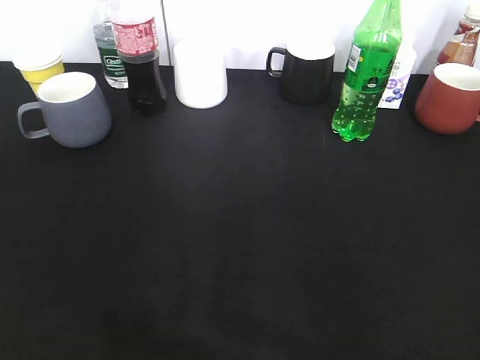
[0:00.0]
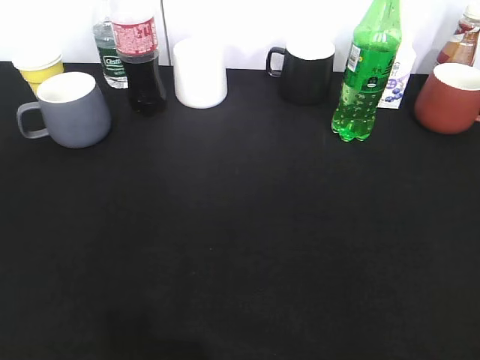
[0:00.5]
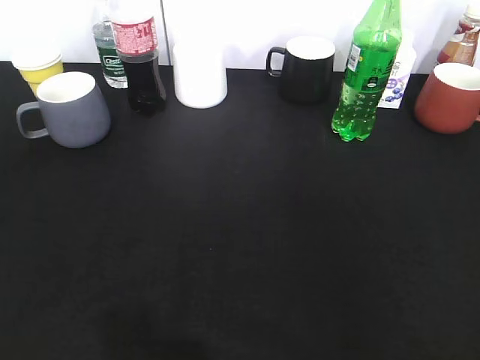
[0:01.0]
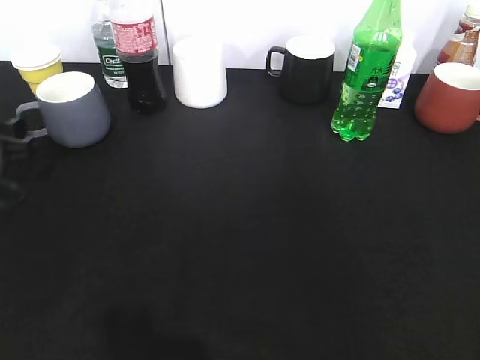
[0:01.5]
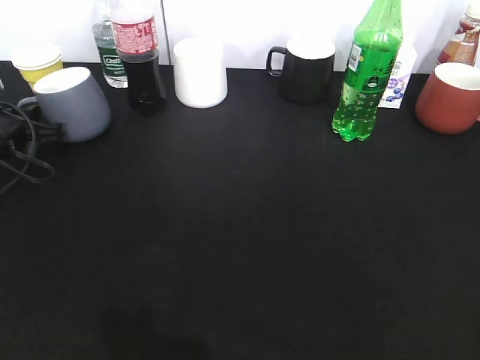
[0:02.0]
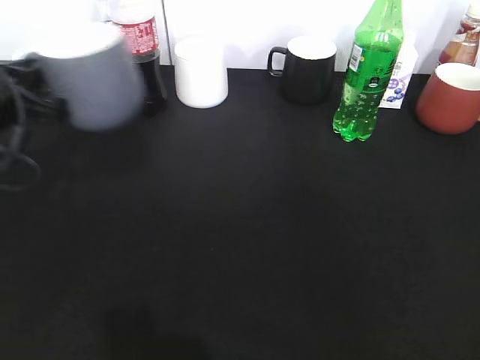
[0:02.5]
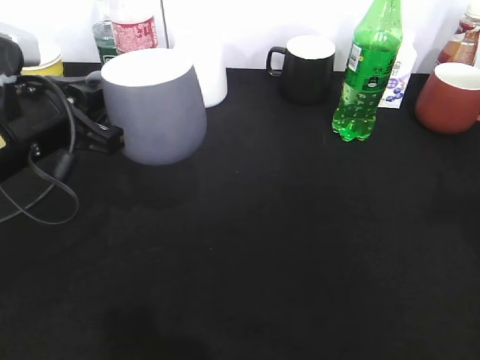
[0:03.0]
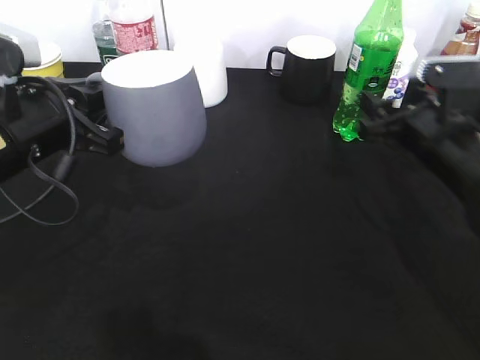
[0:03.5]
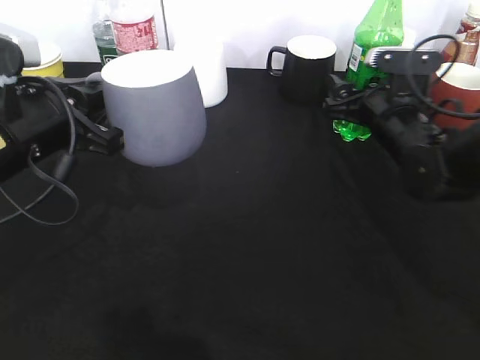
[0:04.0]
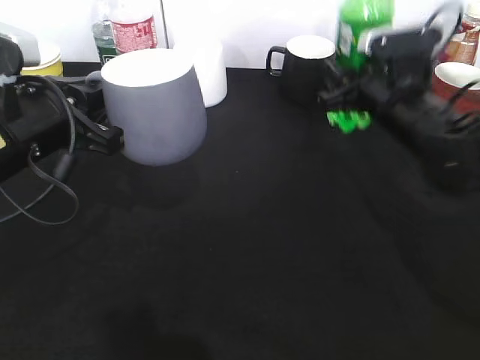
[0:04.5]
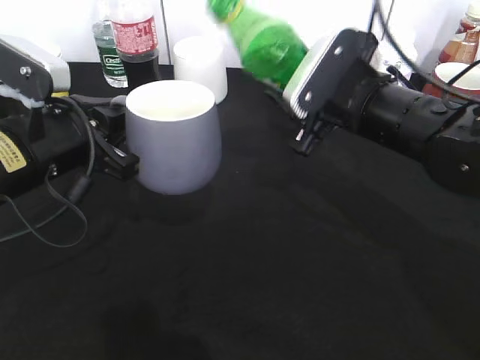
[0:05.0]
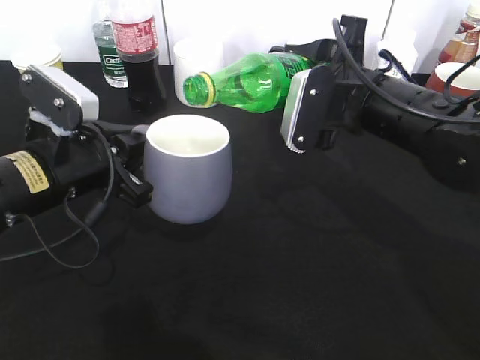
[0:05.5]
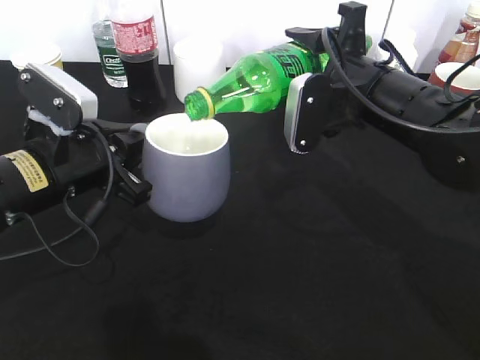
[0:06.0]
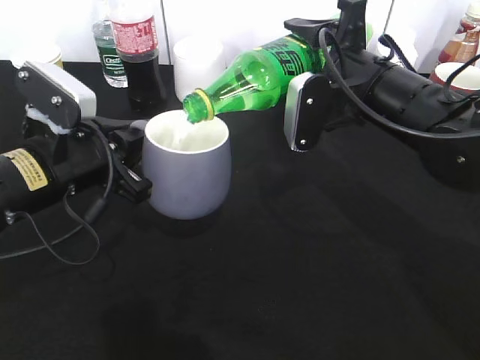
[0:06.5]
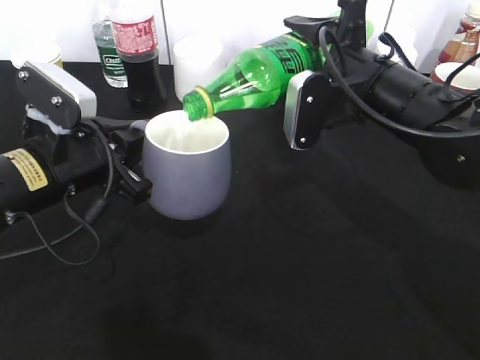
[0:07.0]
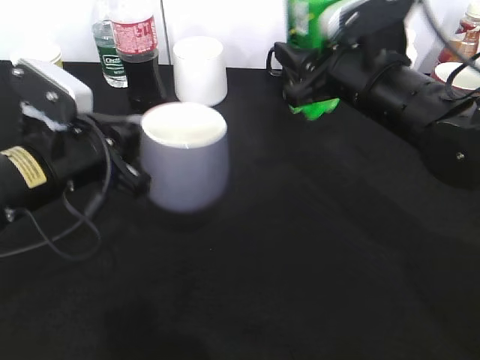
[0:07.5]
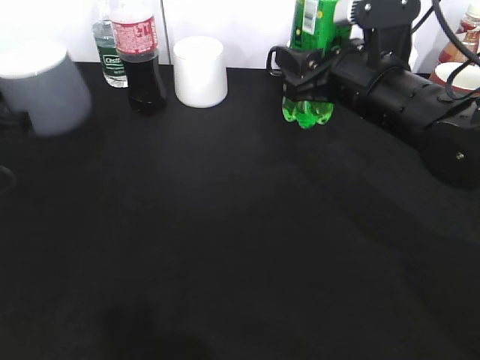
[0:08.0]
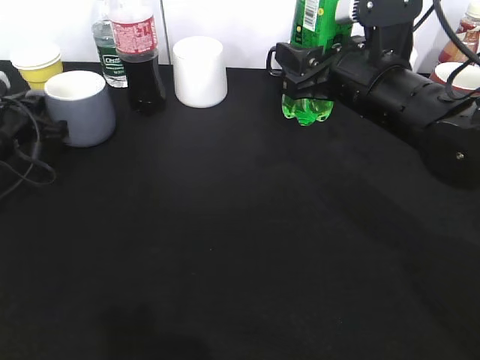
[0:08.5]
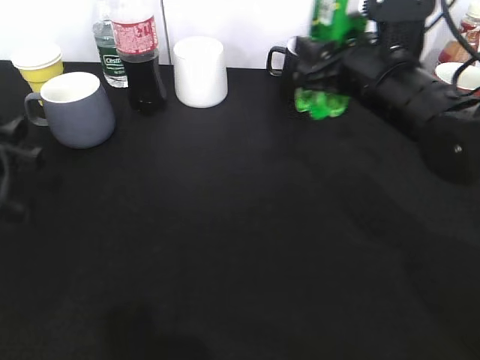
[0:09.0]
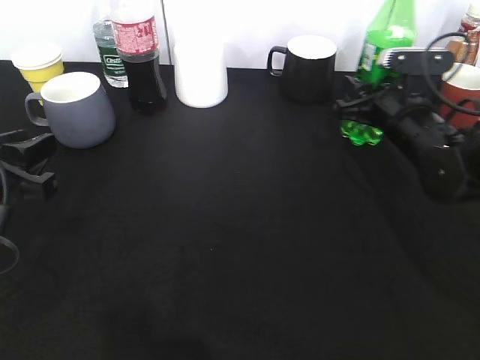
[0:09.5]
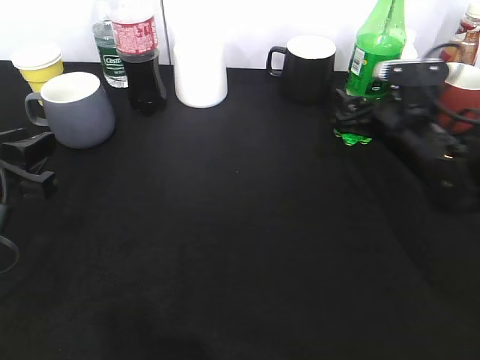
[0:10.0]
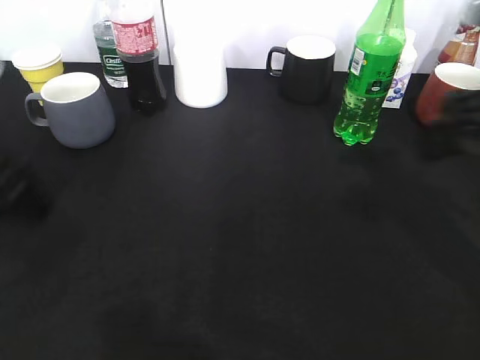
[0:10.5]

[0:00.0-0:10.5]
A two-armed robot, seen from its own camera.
Step, 0:02.5 to 0:03.0: Lift the grey cup with left gripper.
Step, 0:03.5 to 0:04.0: Grasp the bottle with sprite with right gripper.
Step, 0:04.5 to 0:07.0: Pour the sprite from bottle to cup with right gripper.
Step, 0:07.5 to 0:10.0: Place the sprite bottle on the table with right gripper.
0:00.0 to 0:02.0: The left gripper shifts some 40 cm forward and downward, and closes up.
0:02.0 to 0:04.0: The right gripper shifts about 40 cm forward and downward; the left gripper shifts roughly 20 cm backward, to the right and upward.
0:04.0 to 0:06.5: The right gripper shifts about 10 cm upward, to the left and backward, and closes up.
0:06.5 to 0:08.5: The left gripper is displaced to the left, forward and downward by roughly 20 cm.
0:08.5 to 0:10.5: The right gripper goes about 15 cm to the right, backward and upward, and opens up. The left gripper travels backward and upward by approximately 25 cm, and opens up.

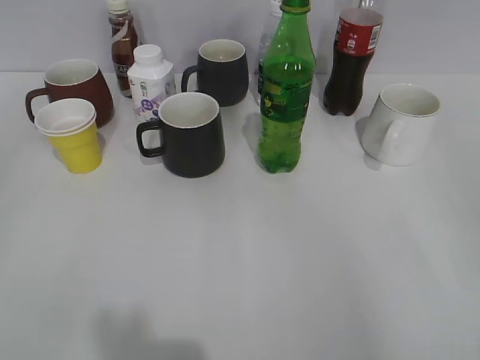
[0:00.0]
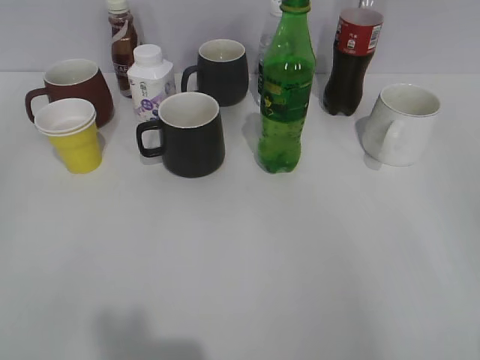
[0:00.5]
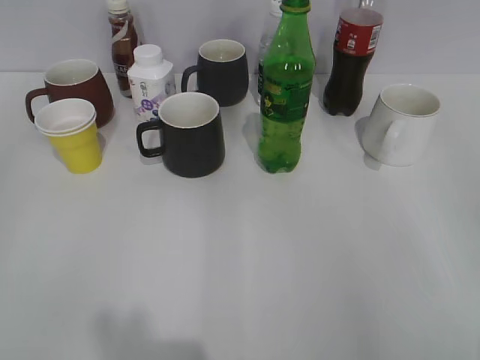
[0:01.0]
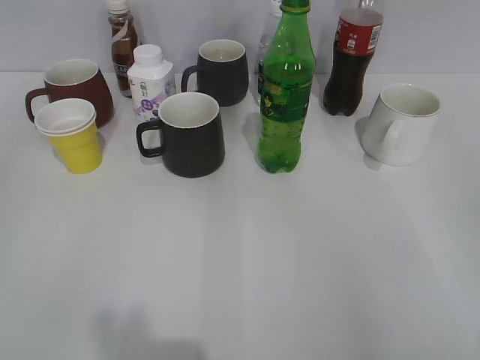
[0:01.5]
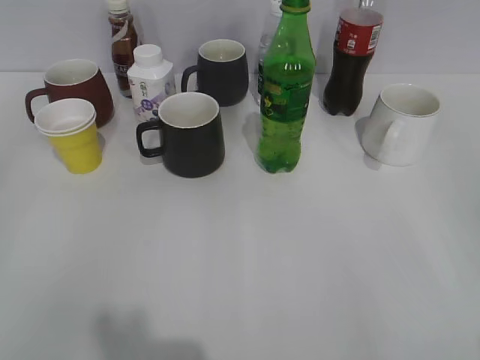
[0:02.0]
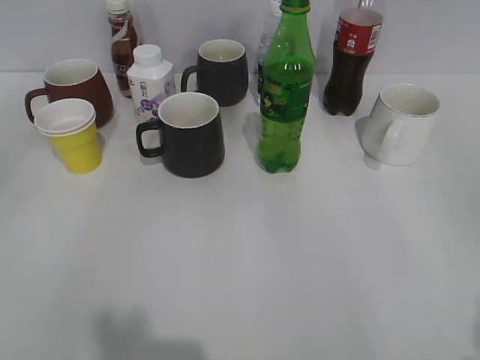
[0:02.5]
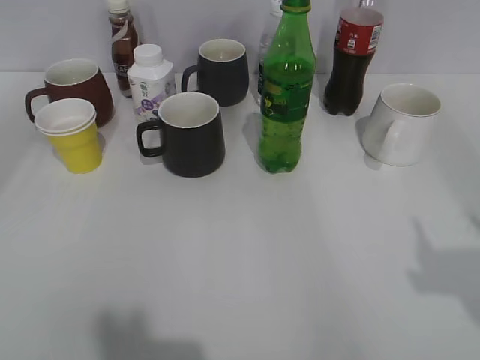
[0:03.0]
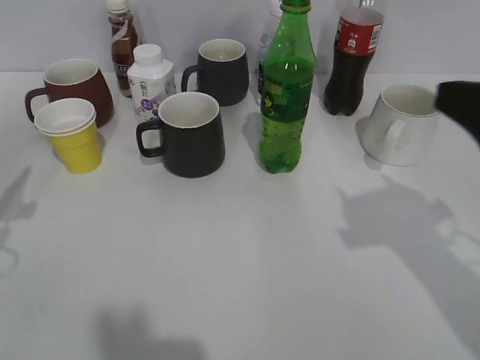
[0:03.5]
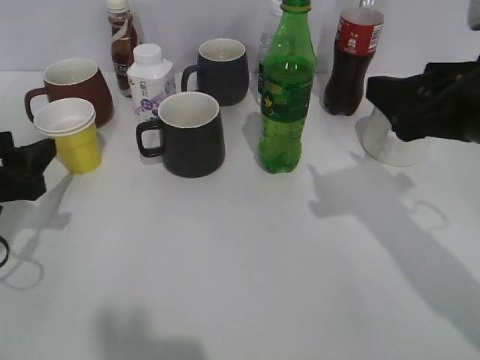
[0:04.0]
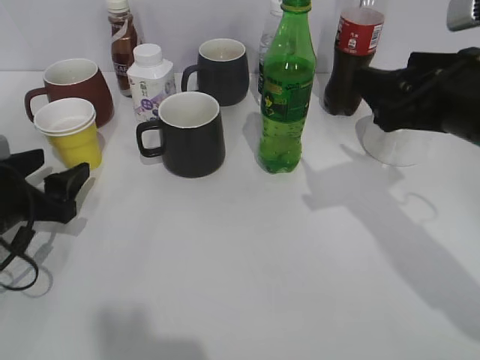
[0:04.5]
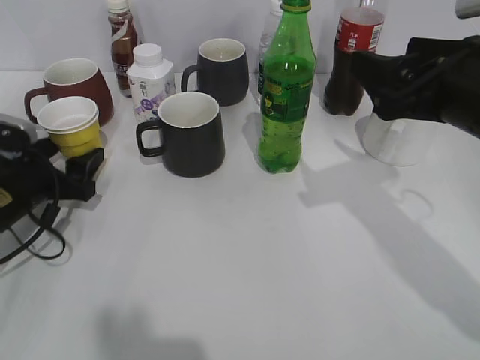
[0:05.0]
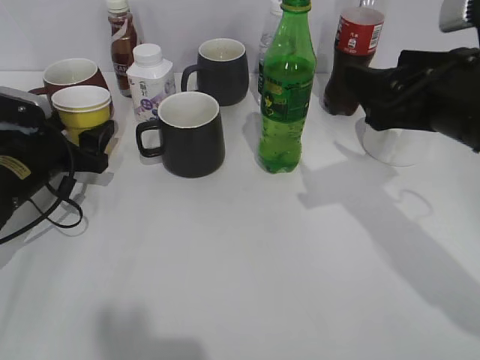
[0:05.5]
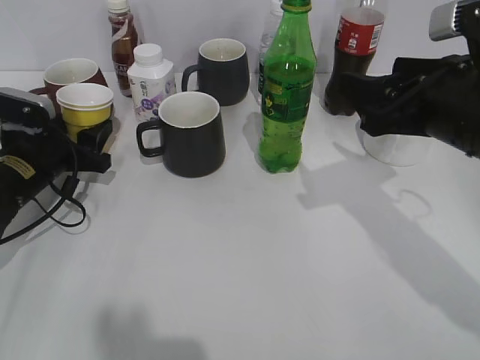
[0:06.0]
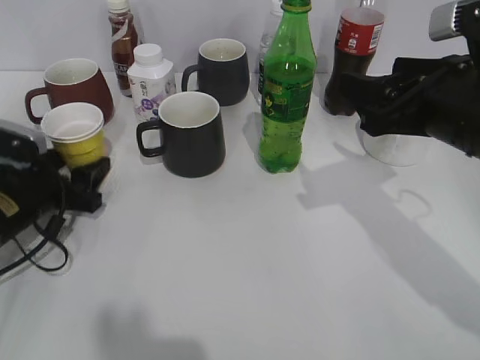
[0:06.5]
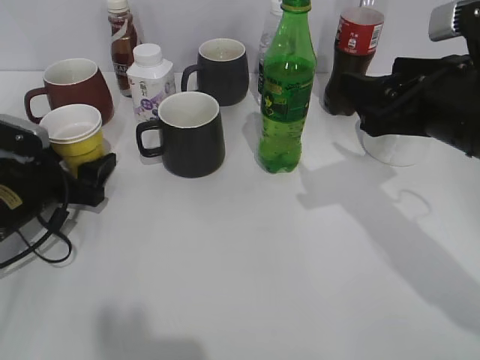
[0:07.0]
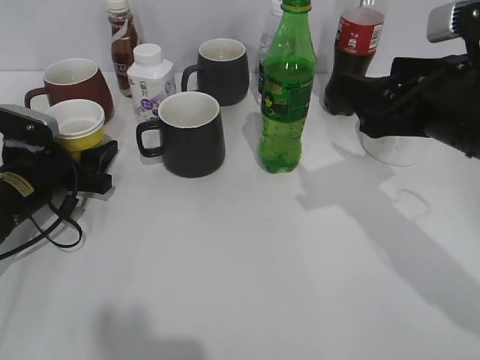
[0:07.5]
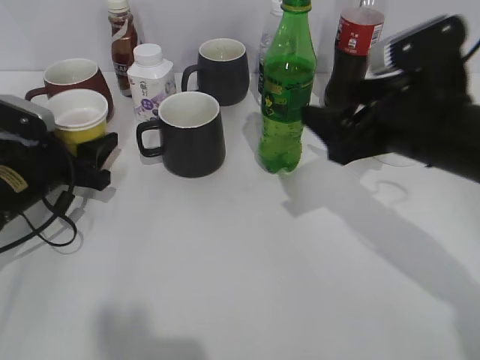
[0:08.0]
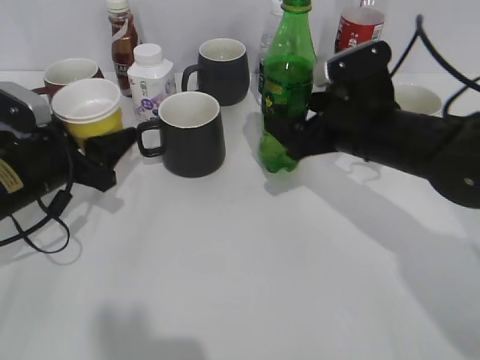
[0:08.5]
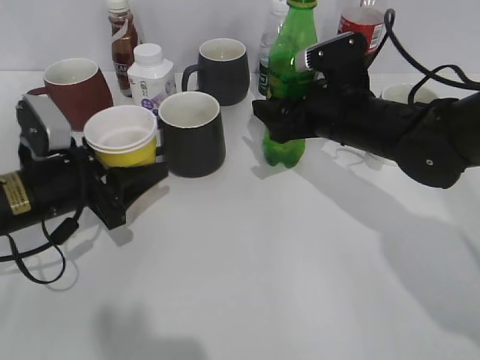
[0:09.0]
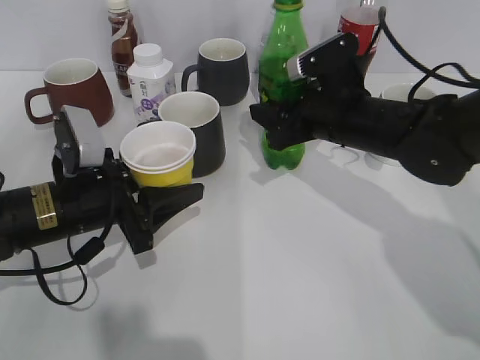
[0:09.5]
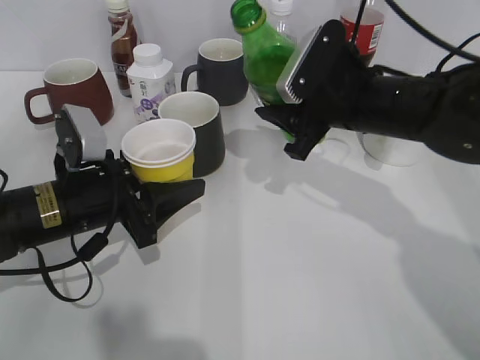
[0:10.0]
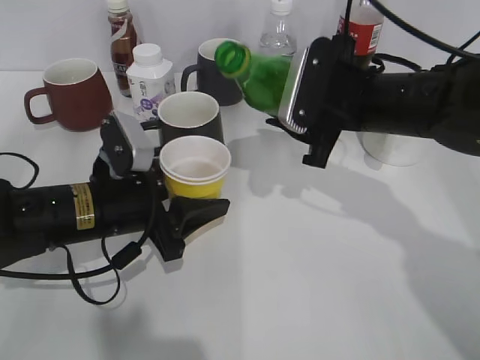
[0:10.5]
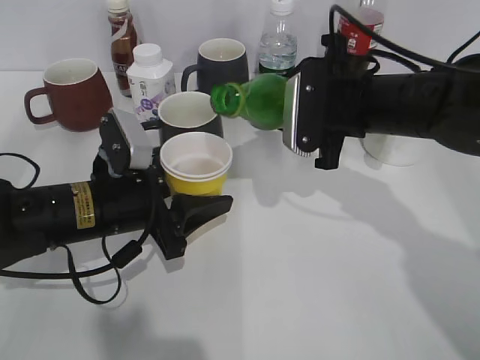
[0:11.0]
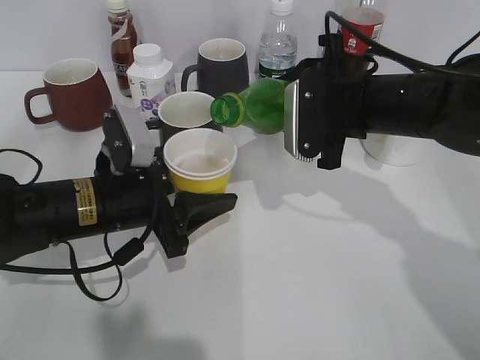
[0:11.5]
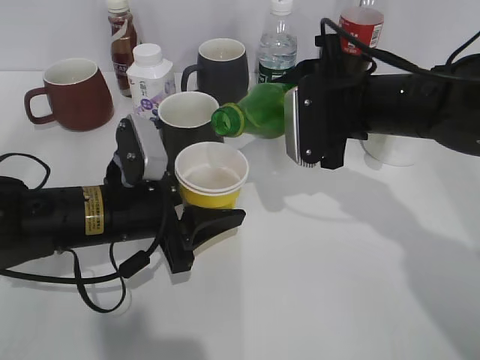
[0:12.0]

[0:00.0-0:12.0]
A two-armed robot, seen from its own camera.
Step, 0:02.5 to 0:07.0: Grasp the yellow paper cup with left gripper.
Step, 0:07.5 to 0:09.0: Grasp the bottle with sprite with right gripper.
0:02.0 to 0:04.0: The left gripper goes roughly 25 cm forward and downward. The right gripper shifts about 25 cm forward and to the left.
0:04.0 to 0:06.0: The left gripper heads forward and downward, covering about 10 cm, and opens, then closes once more.
0:06.0 to 0:08.0: The left gripper opens and closes again.
0:08.0 to 0:10.0: The right gripper shifts approximately 5 cm forward, and closes up, while the left gripper travels to the right and backward by about 10 cm.

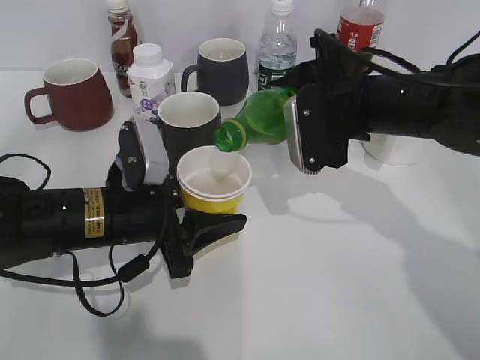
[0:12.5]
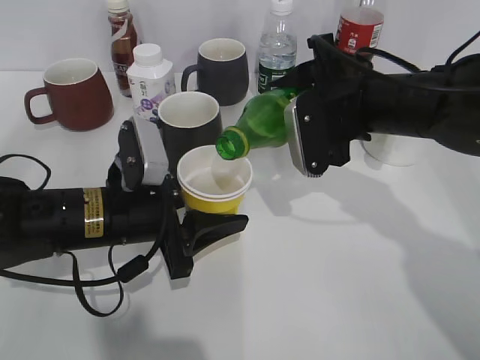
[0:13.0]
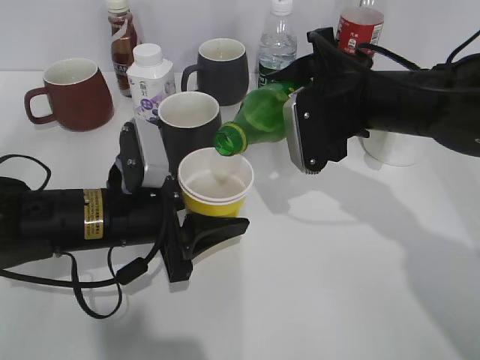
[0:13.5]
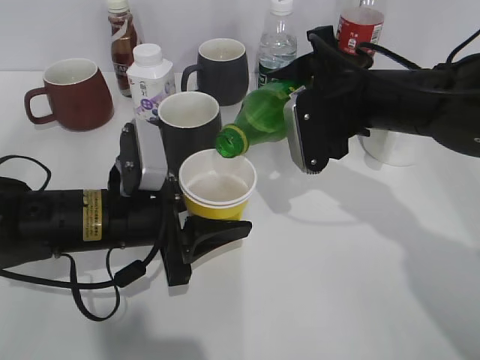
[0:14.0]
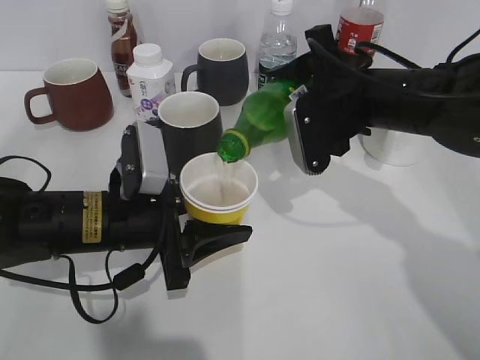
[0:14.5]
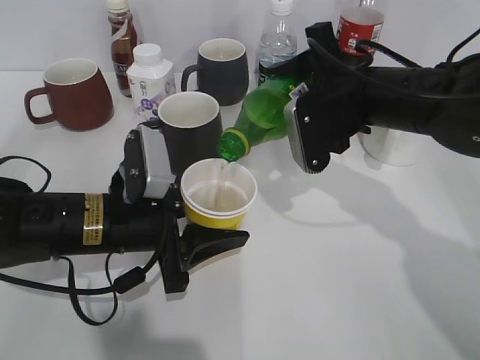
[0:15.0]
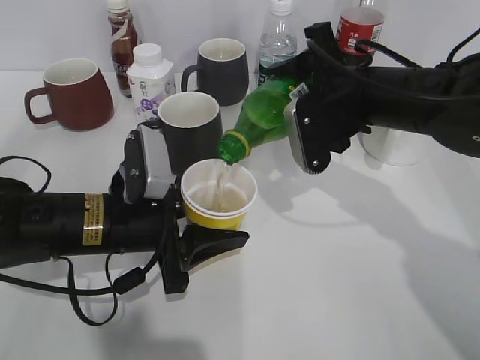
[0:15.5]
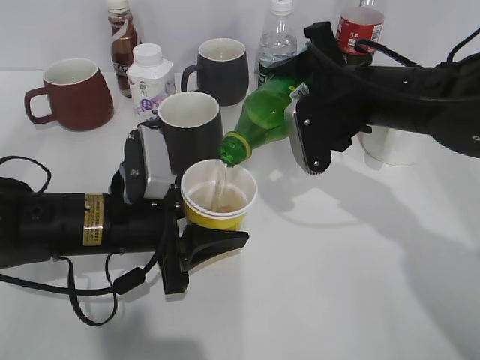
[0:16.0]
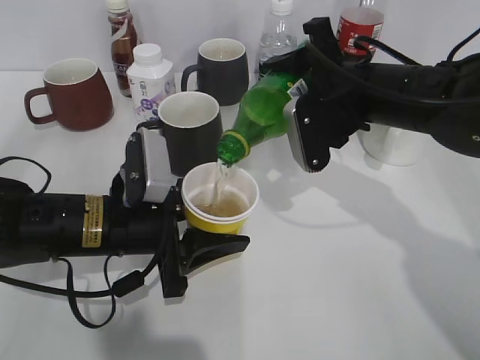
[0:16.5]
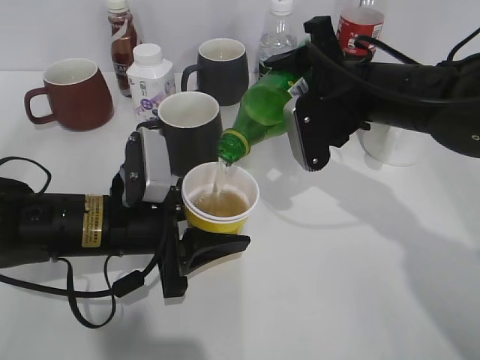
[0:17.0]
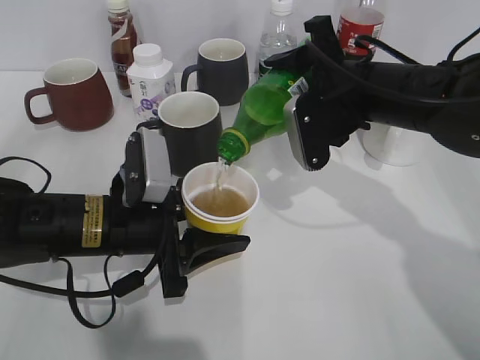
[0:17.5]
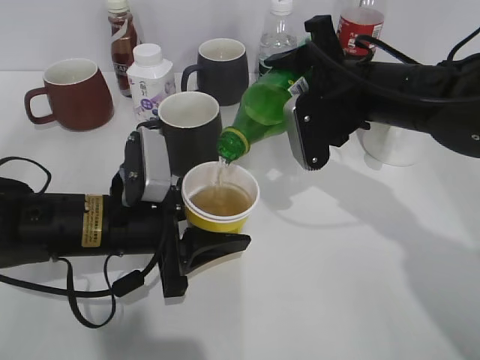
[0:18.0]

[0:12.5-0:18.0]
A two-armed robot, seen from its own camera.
0:12.5 to 0:14.5: There are only small adjustments of the grippers.
0:14.5 to 0:16.0: Neither gripper changes place.
0:16.0 to 0:18.0: Both grippers stay put.
